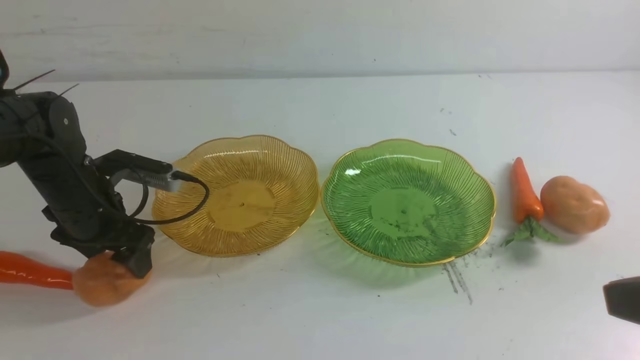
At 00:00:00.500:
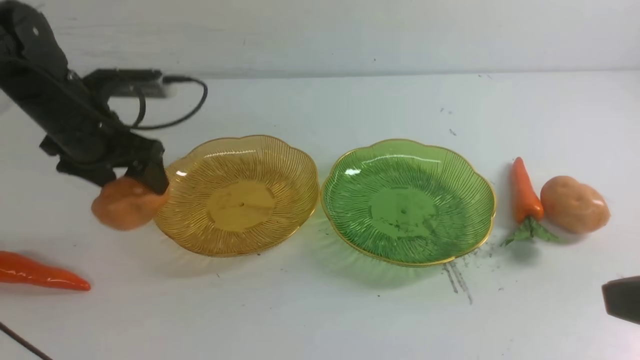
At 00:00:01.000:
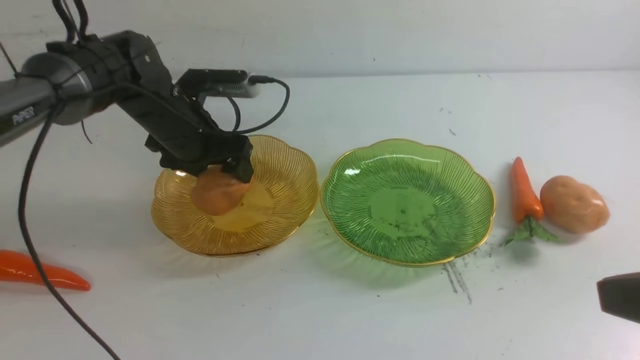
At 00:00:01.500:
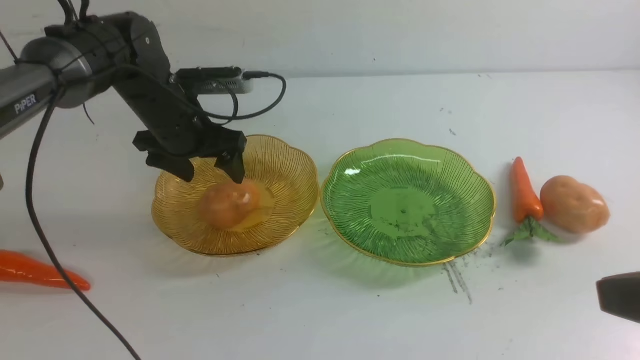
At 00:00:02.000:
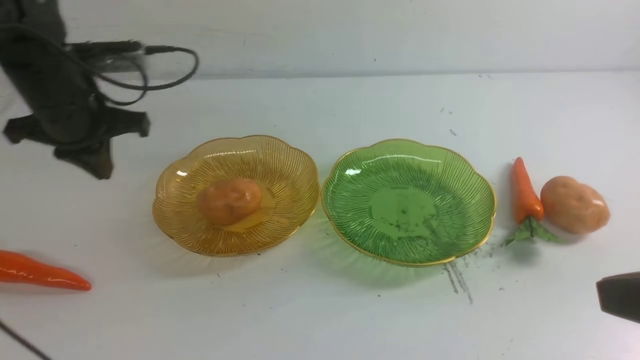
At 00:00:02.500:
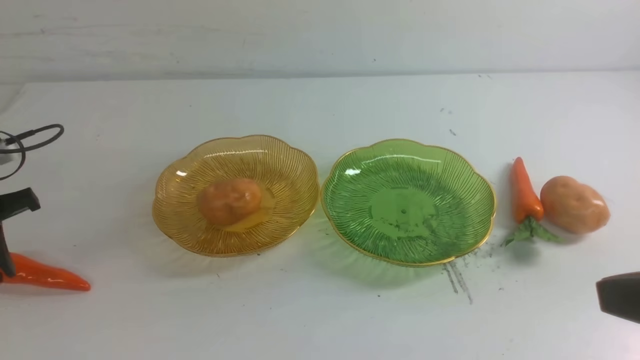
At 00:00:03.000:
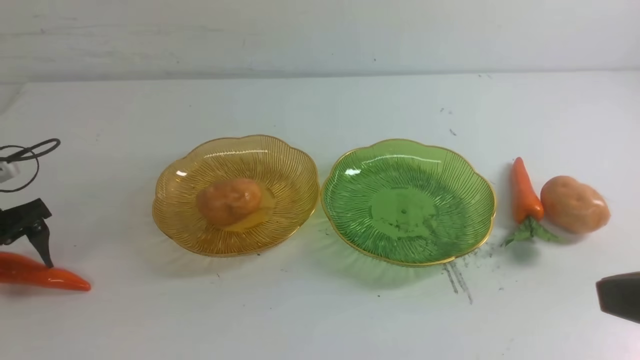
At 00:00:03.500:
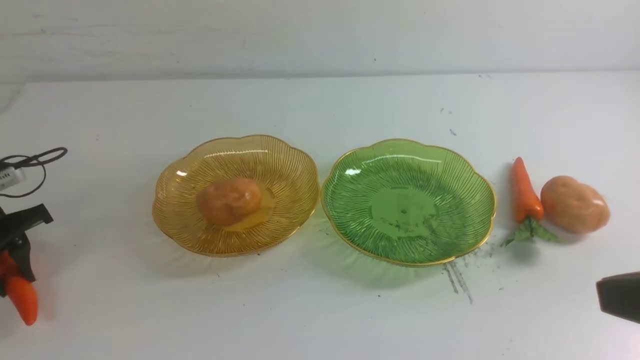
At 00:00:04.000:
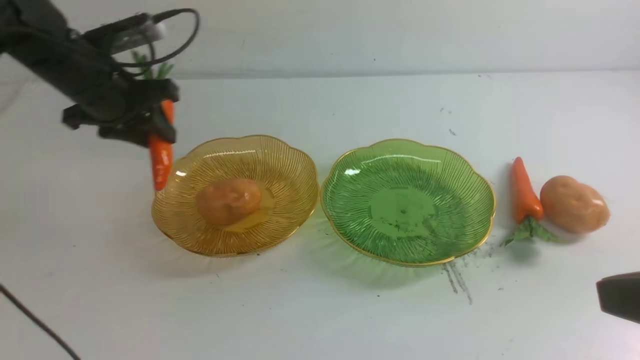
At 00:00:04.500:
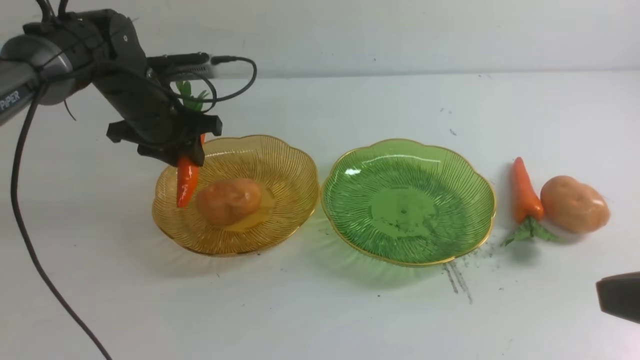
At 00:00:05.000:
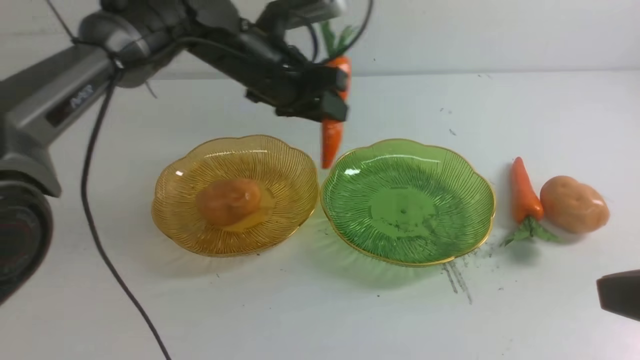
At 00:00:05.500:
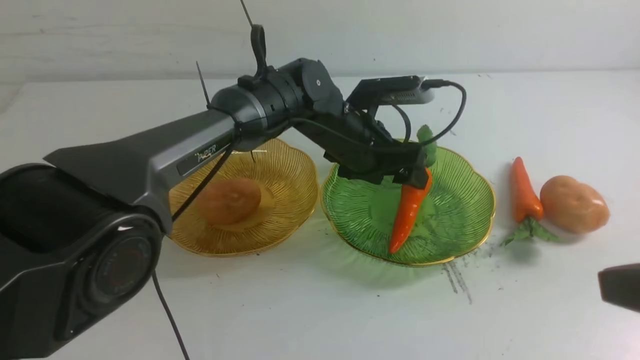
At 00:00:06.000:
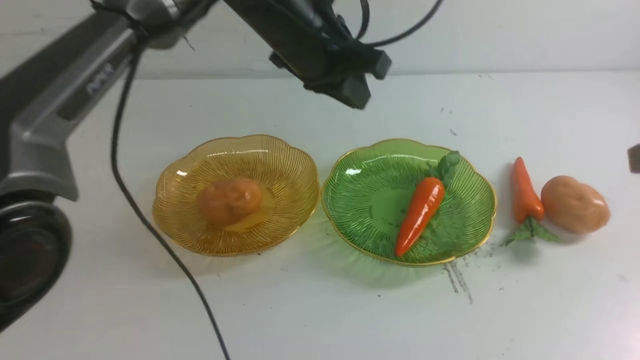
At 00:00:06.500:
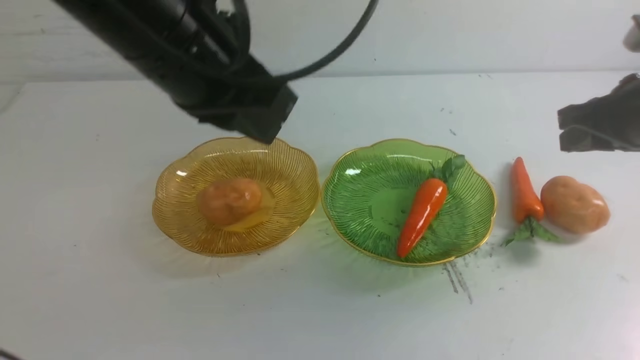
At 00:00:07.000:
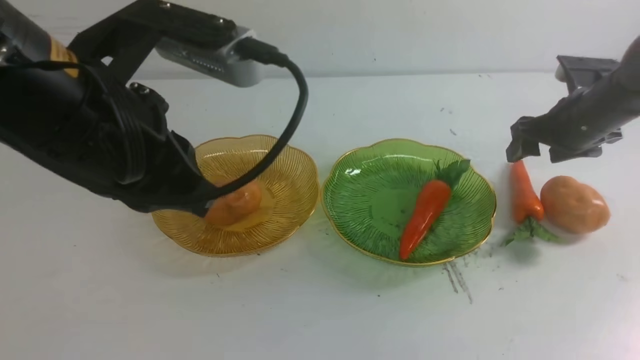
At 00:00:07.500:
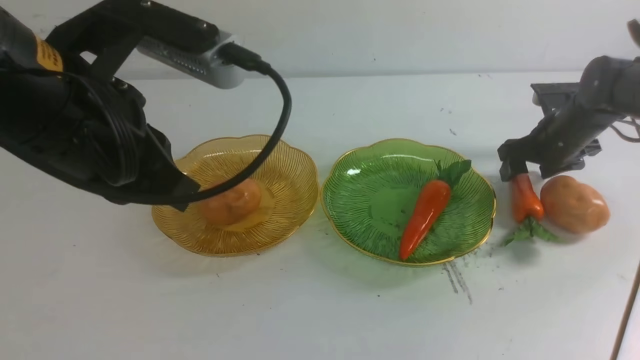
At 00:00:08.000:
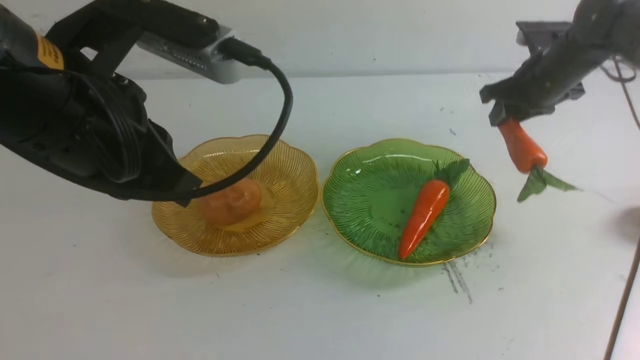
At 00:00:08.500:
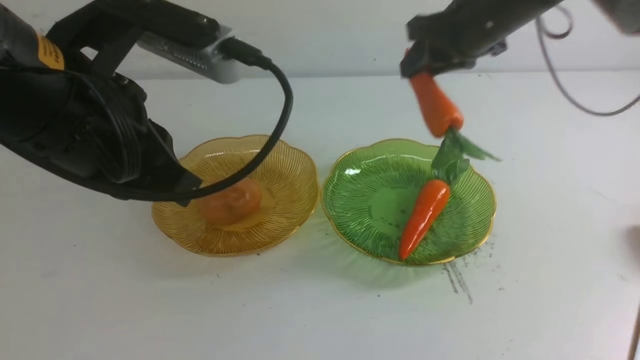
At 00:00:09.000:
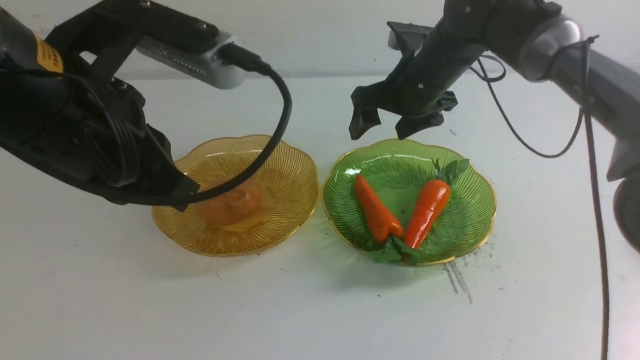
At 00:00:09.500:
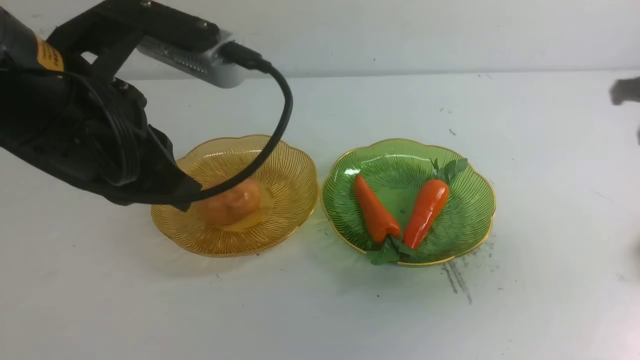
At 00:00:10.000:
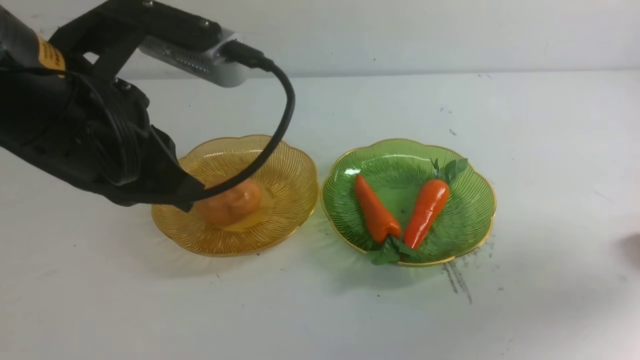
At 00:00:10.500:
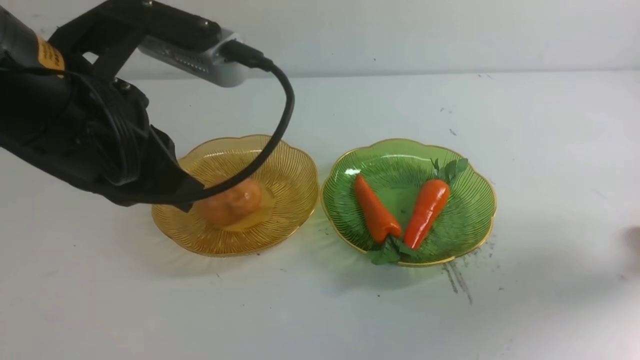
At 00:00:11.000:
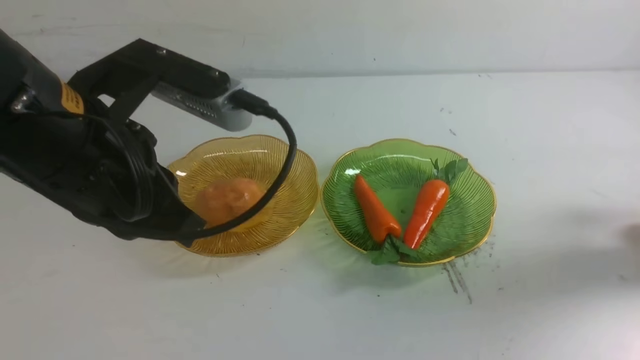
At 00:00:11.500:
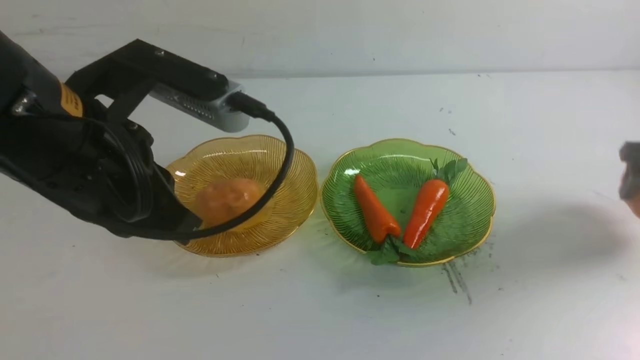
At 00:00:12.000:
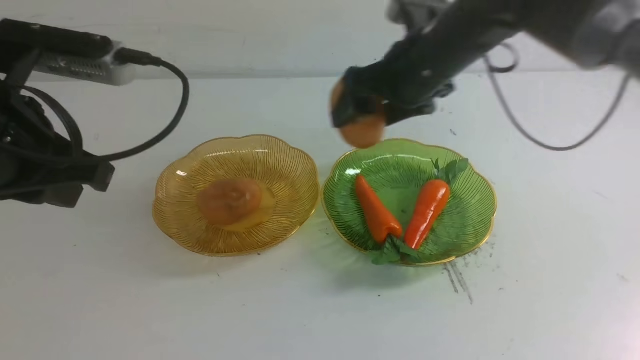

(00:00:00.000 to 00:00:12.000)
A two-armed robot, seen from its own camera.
Step, 00:00:01.500 - 00:00:05.500: use the left arm to grab a carrot and put it into the right plate.
Step, 00:00:06.000 - 00:00:08.500: use the right arm to grab a carrot and put it into the right plate.
00:00:00.000 - 00:00:02.000: The left gripper goes about 10 cm upward, and closes.
00:00:02.000 - 00:00:04.000: The left gripper moves roughly 15 cm to the left and comes back, and opens, then closes once more.
00:00:04.000 - 00:00:06.000: The right gripper travels forward by some 10 cm. Meanwhile the left gripper moves to the right, about 25 cm.
00:00:06.000 - 00:00:08.000: The left gripper heads backward and to the left, covering about 25 cm. The right gripper shifts some 35 cm forward and downward, and opens and closes again.
00:00:08.000 - 00:00:10.000: The right gripper travels to the right and backward by some 20 cm.
00:00:10.000 - 00:00:12.000: The left gripper shifts approximately 5 cm to the left; the right gripper heads to the left, covering some 25 cm.

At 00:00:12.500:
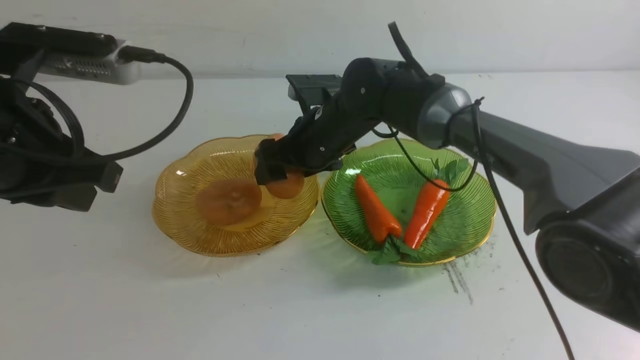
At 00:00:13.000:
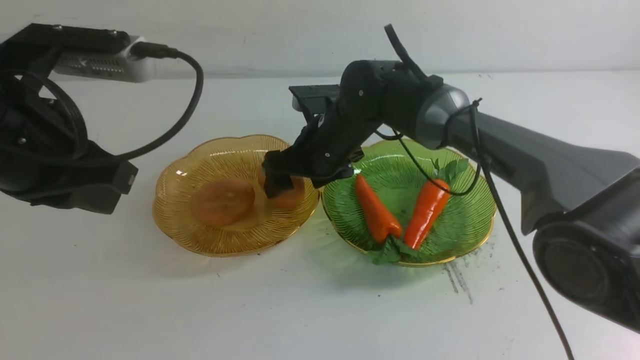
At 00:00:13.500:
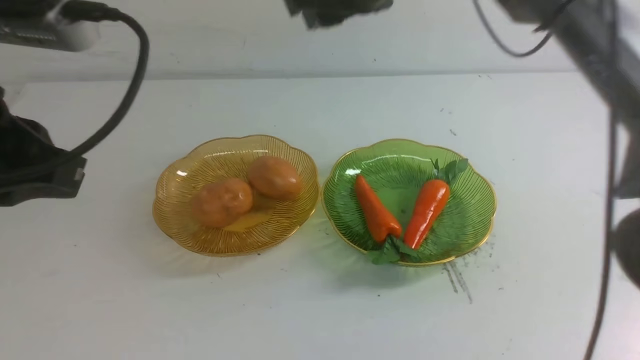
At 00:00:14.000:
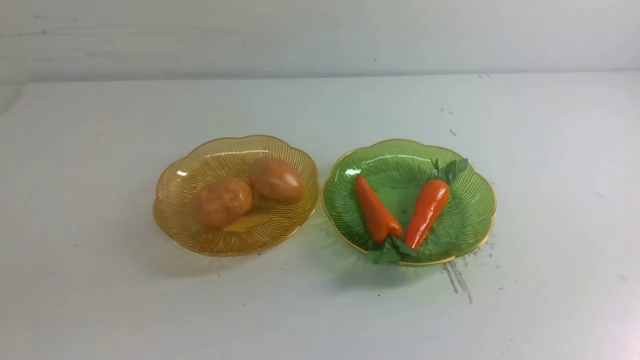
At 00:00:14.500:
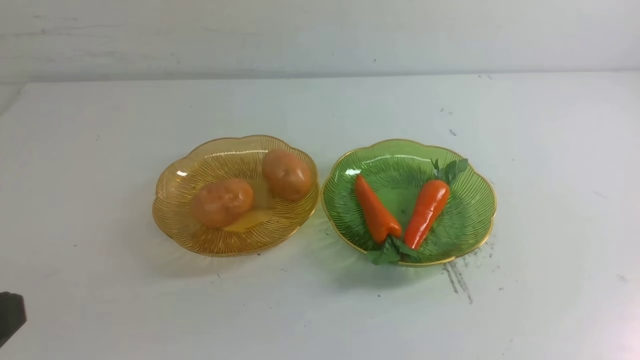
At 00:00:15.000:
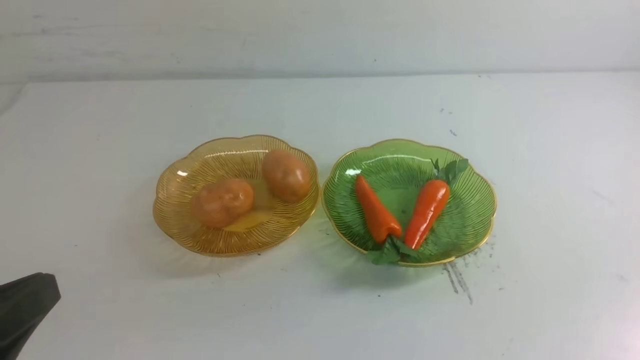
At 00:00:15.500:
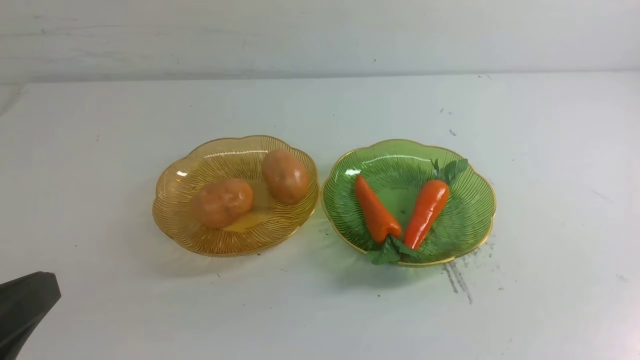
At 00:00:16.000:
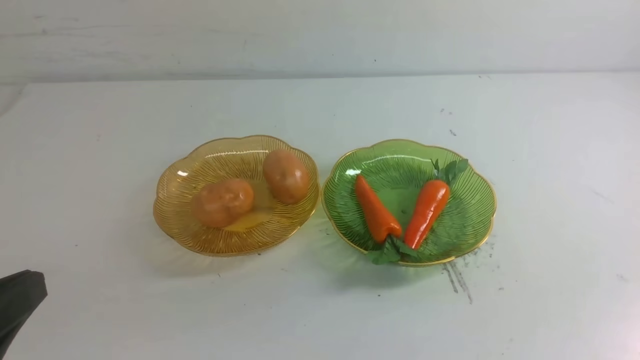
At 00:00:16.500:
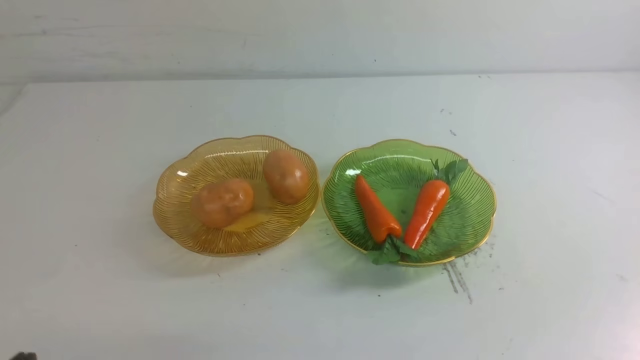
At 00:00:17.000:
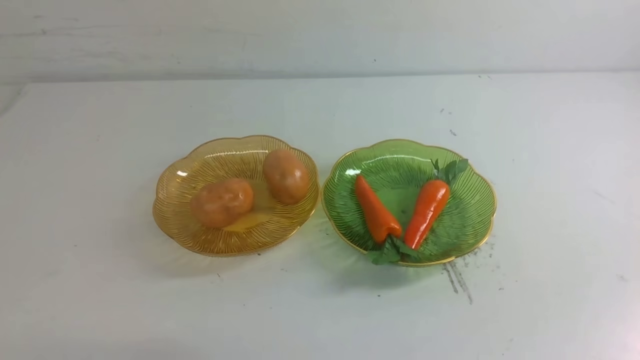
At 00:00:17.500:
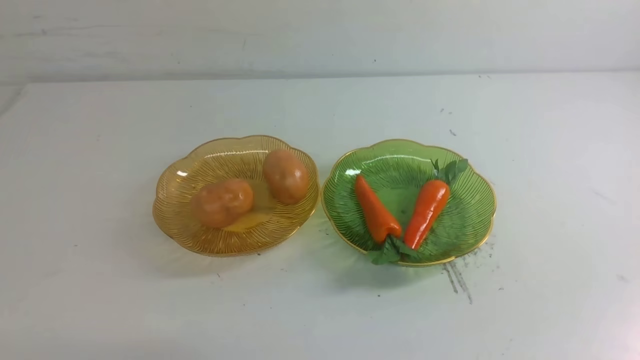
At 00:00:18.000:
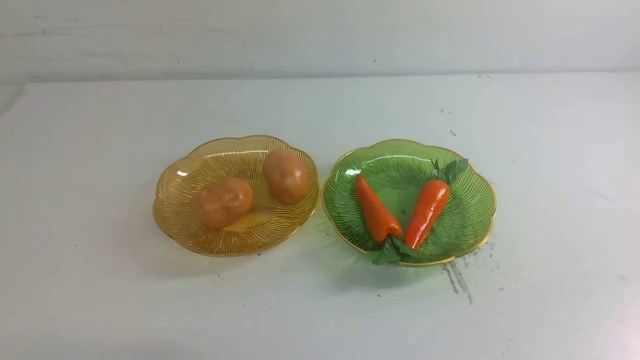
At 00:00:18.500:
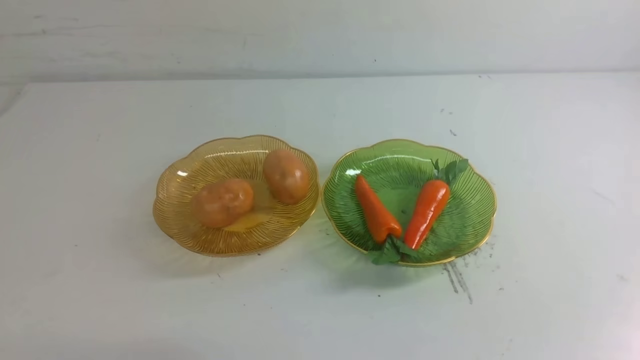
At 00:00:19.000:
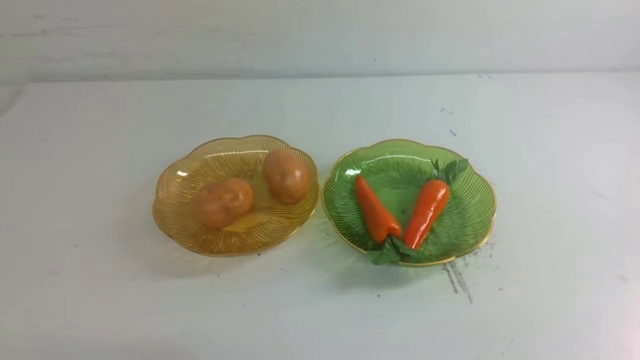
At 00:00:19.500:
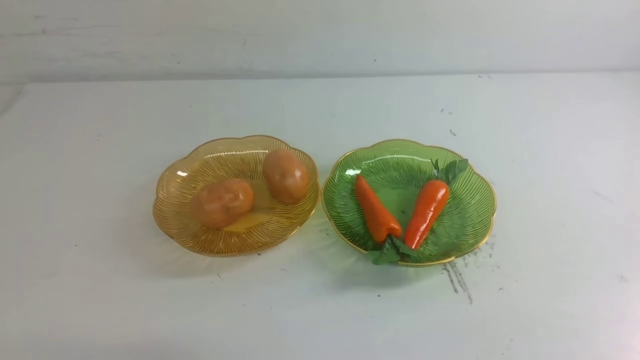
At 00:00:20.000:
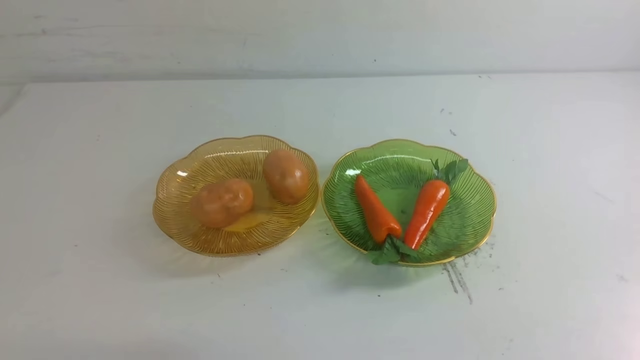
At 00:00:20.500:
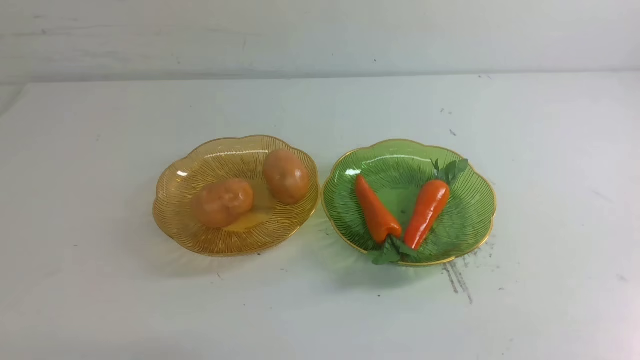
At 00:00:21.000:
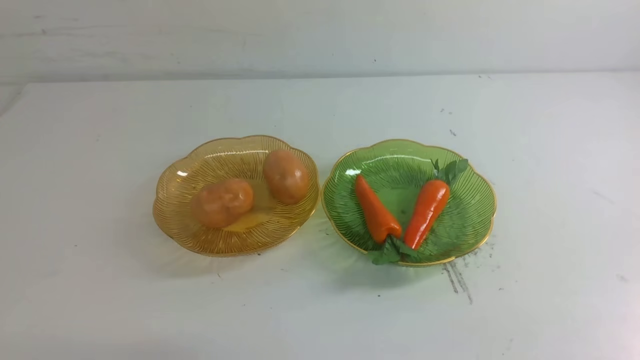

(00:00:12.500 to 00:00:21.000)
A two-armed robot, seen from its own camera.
00:00:12.500 - 00:00:14.500: The left gripper heads backward, covering about 20 cm; the right gripper travels backward, upward and to the right by approximately 50 cm, and closes.
00:00:19.000 - 00:00:21.000: Neither gripper changes place.
